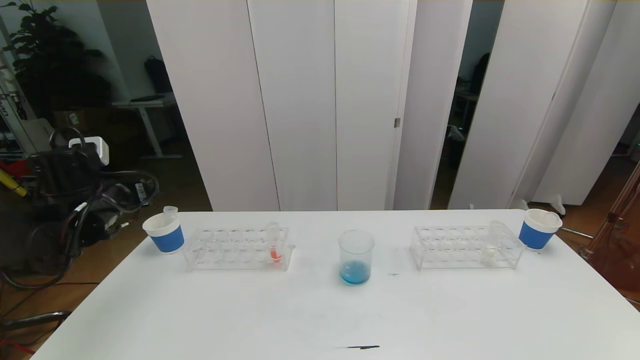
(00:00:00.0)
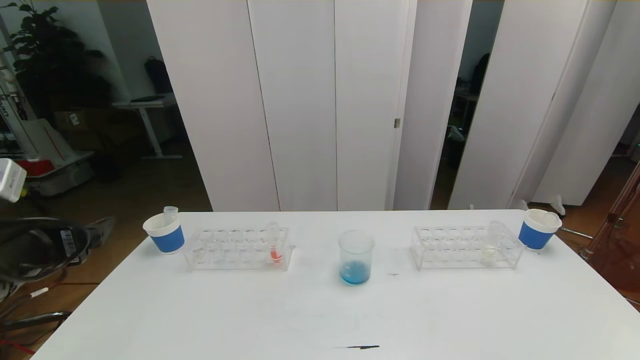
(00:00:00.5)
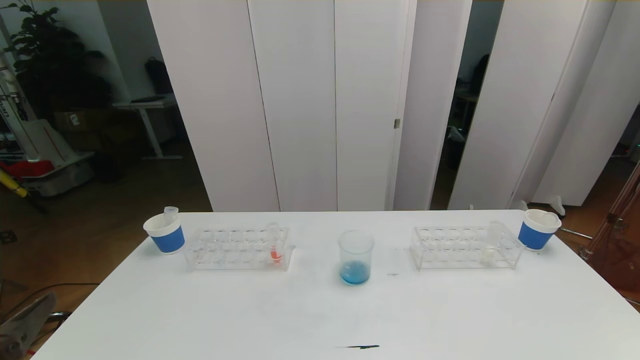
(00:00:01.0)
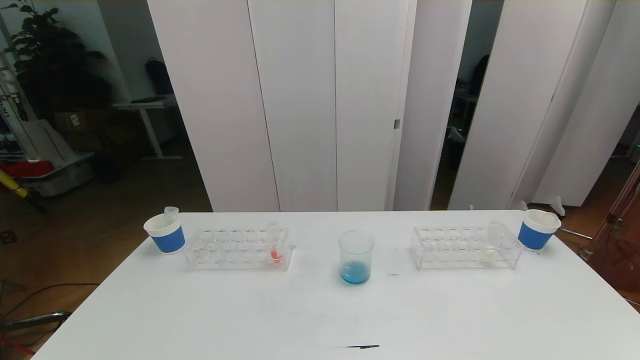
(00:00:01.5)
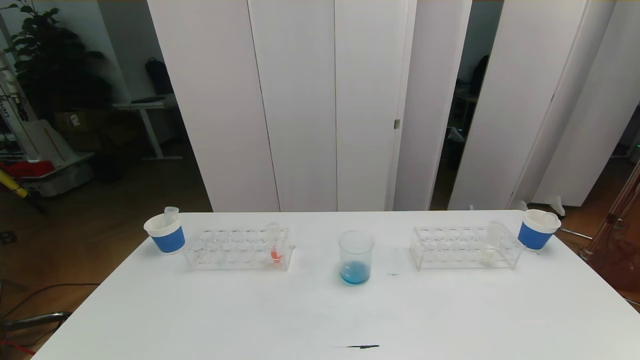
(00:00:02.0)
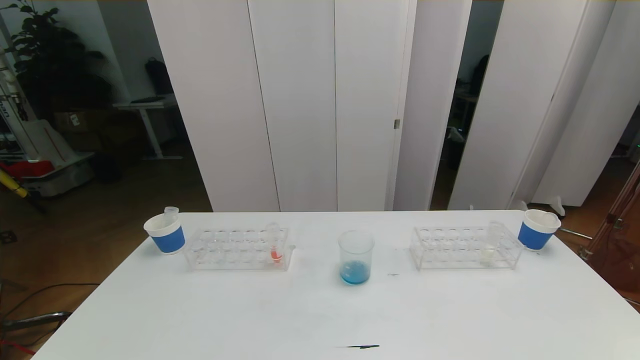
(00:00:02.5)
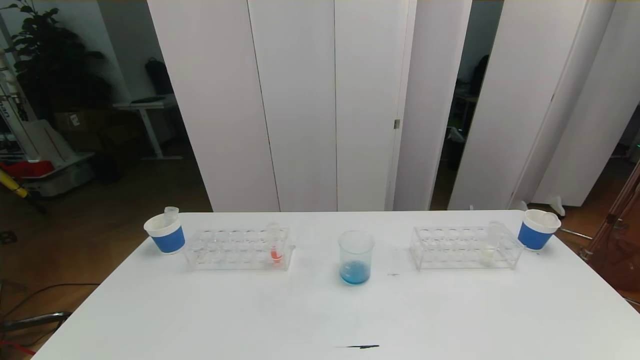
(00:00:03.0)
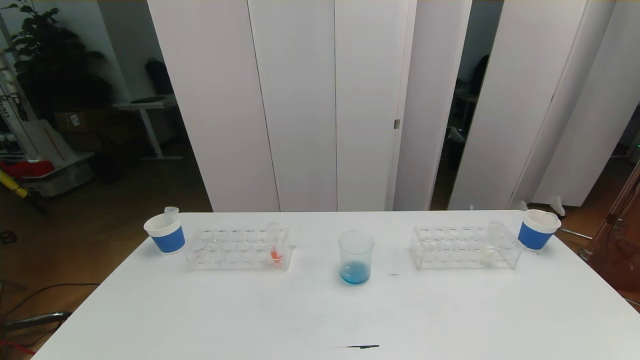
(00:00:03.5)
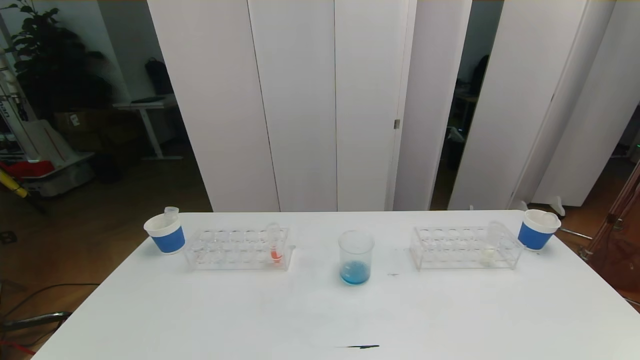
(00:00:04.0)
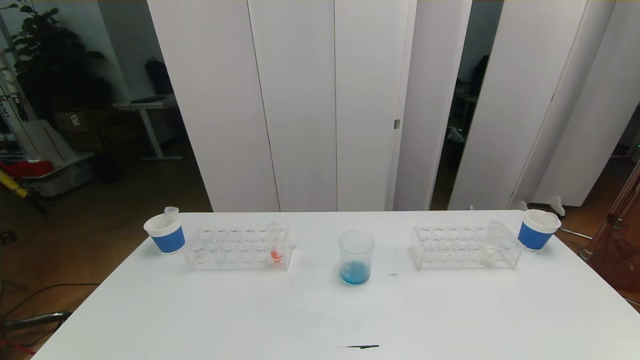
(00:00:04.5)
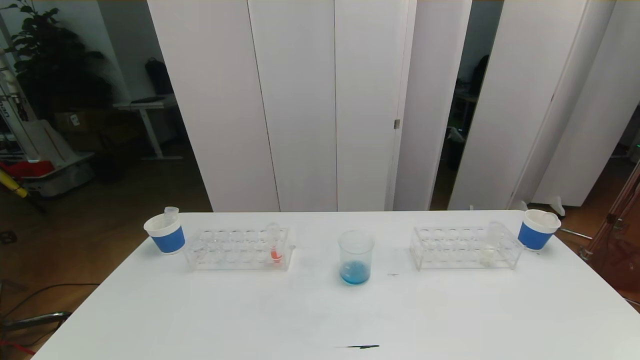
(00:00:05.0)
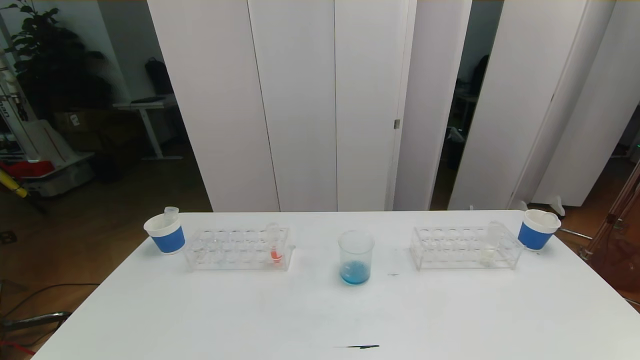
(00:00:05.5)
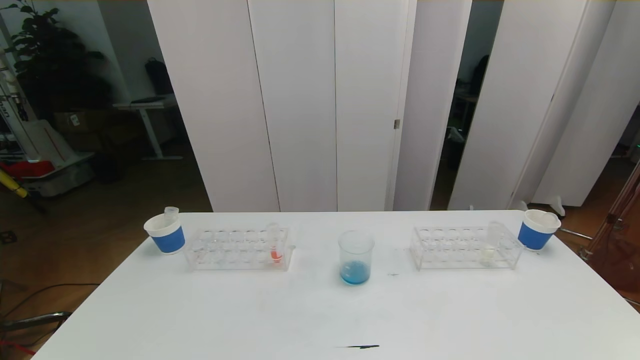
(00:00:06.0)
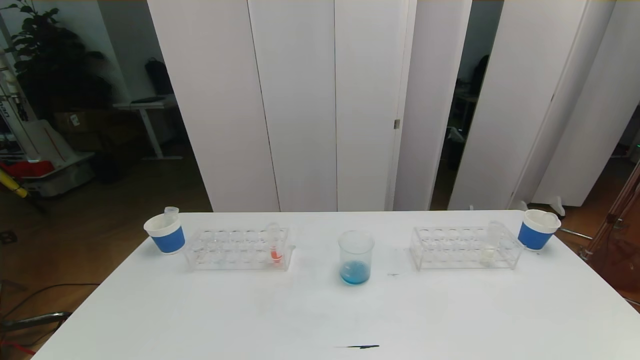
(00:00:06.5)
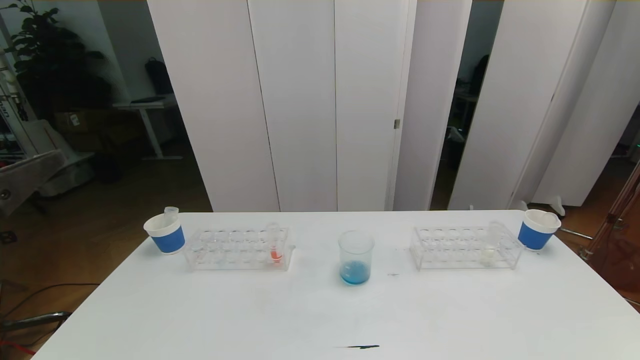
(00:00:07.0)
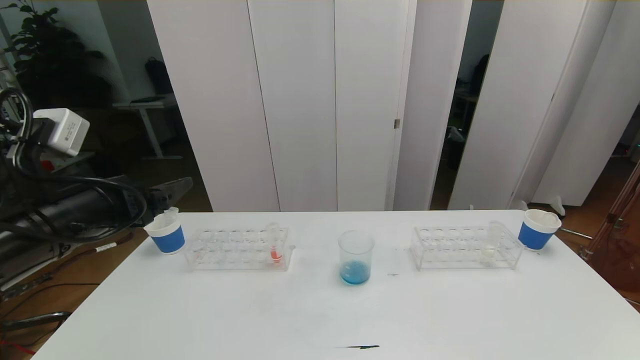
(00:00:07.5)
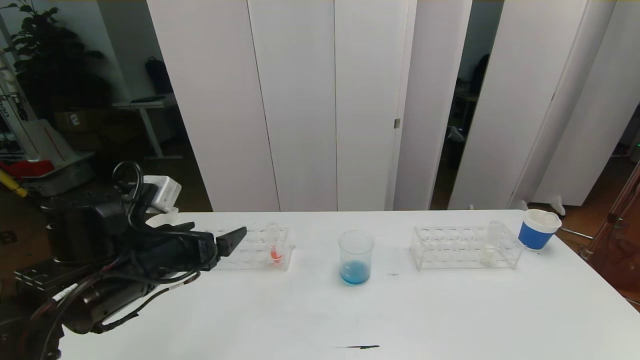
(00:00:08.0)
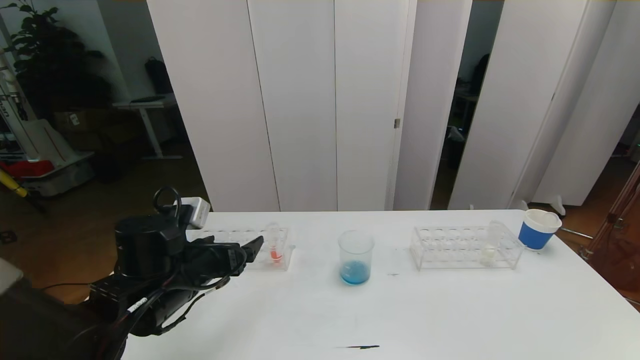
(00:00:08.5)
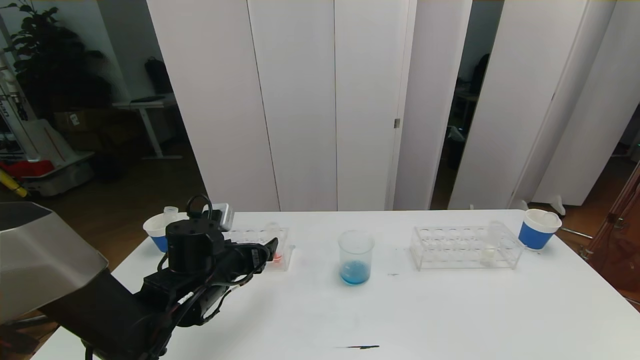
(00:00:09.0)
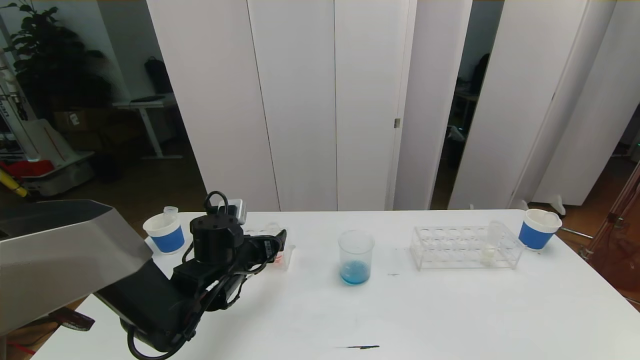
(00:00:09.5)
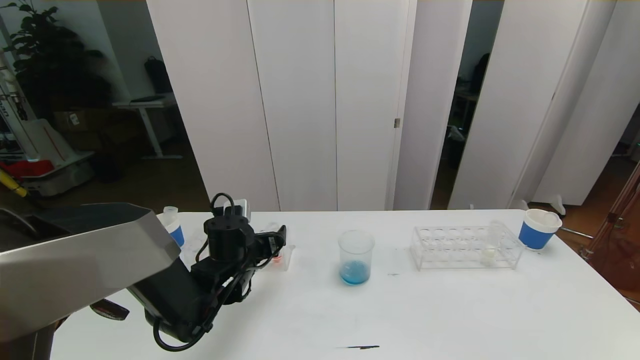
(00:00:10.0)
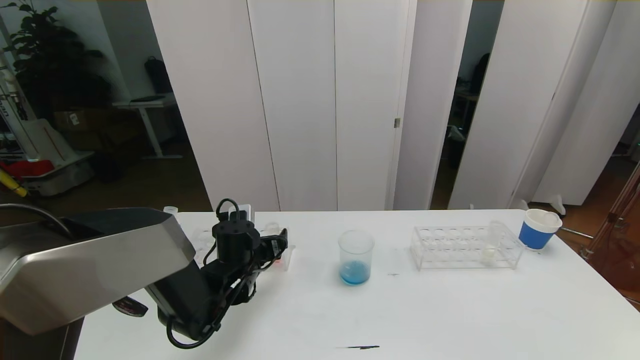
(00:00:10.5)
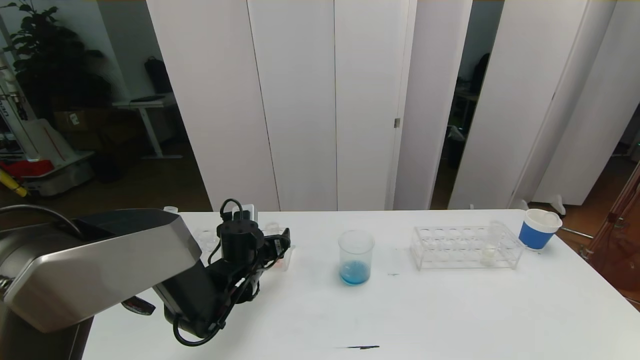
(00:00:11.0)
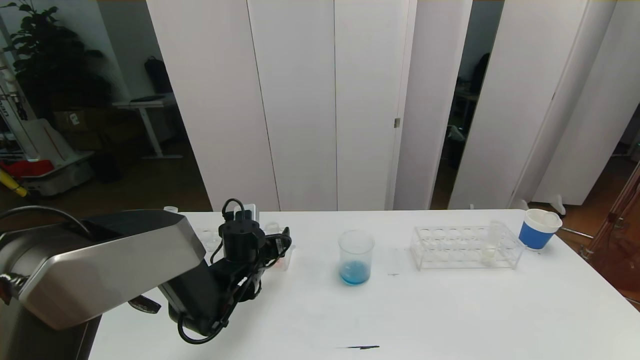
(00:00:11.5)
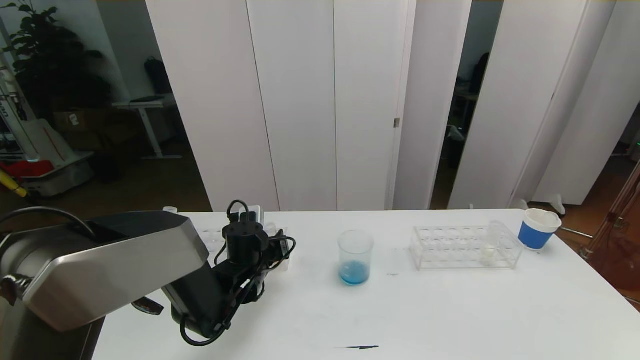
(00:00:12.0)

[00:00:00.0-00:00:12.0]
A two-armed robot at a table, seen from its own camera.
Task of the whole recording: pick up the test tube with red pigment the test tube with blue pigment and the test tube with white pigment by grippers and pour them into the beaker.
Step, 00:00:00.0 to 00:00:02.0: Pour the blue reagent into the graduated cylinder and place the test tube into the paper cup.
00:00:00.0 to 00:00:02.0: The left gripper travels backward by some 40 cm.
00:00:06.0 to 00:00:08.0: The left gripper is displaced forward by approximately 30 cm.
00:00:08.0 to 00:00:10.0: The left gripper is displaced forward, downward and to the right by roughly 15 cm.
00:00:10.0 to 00:00:12.0: The left gripper closes up.

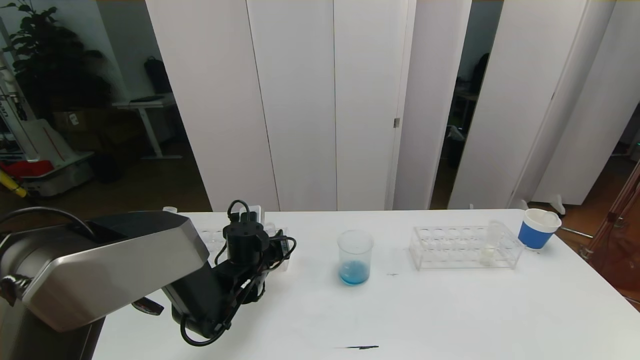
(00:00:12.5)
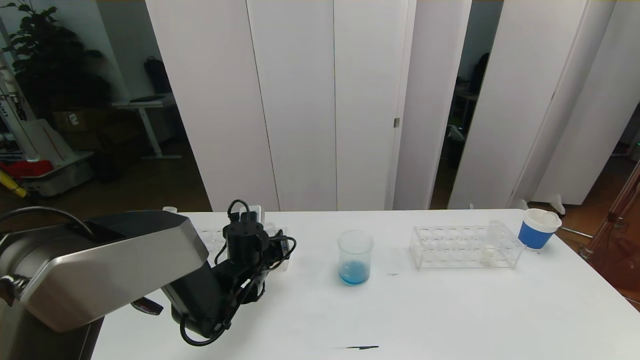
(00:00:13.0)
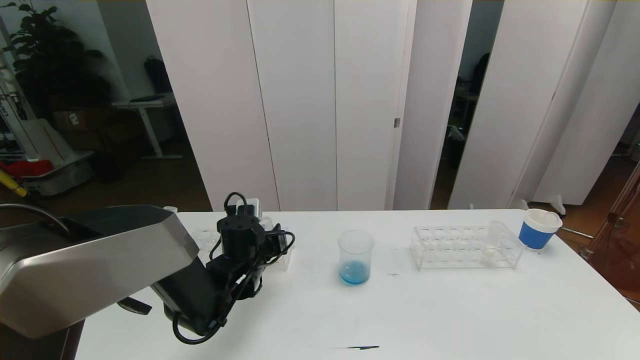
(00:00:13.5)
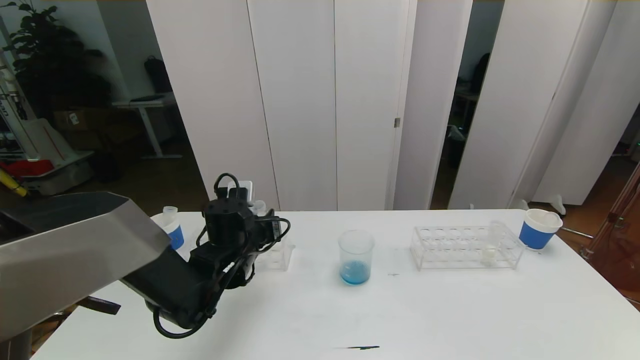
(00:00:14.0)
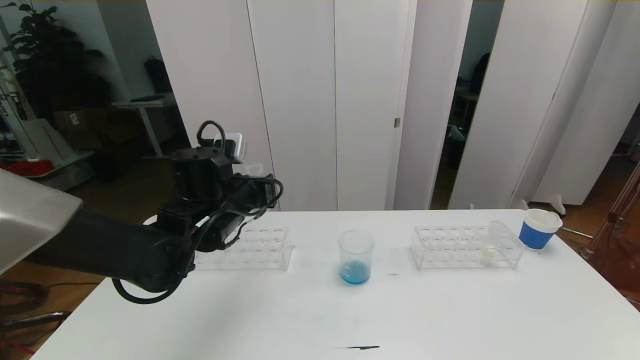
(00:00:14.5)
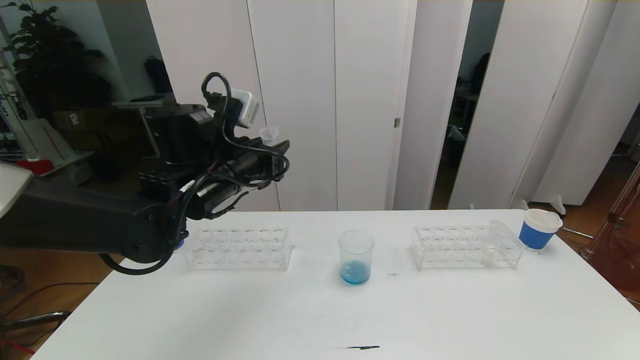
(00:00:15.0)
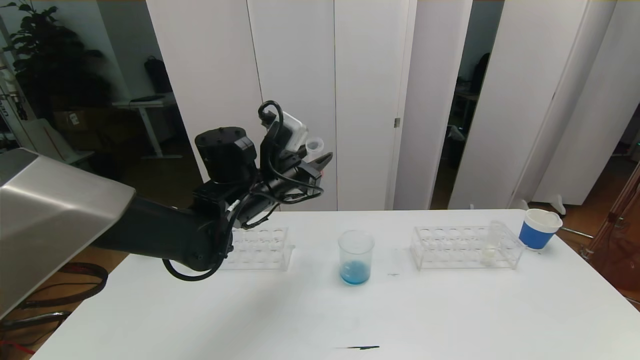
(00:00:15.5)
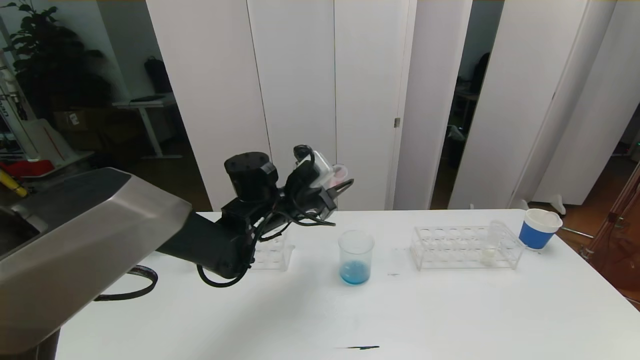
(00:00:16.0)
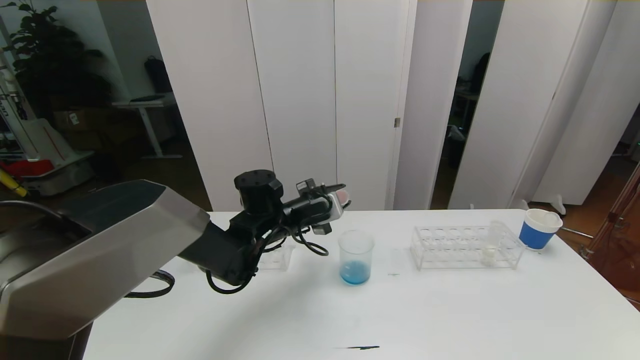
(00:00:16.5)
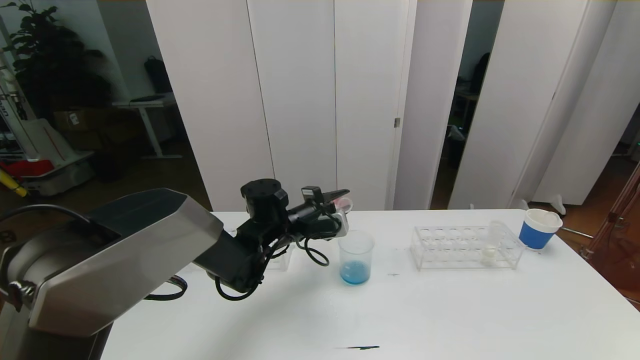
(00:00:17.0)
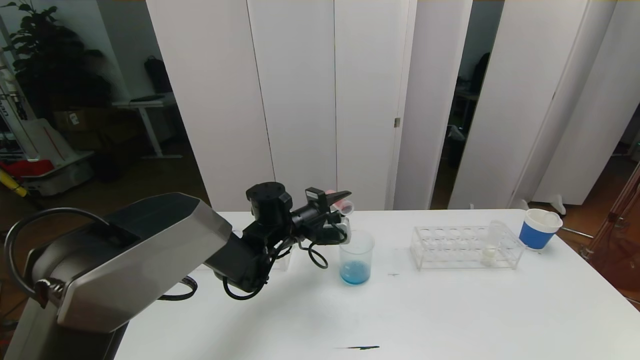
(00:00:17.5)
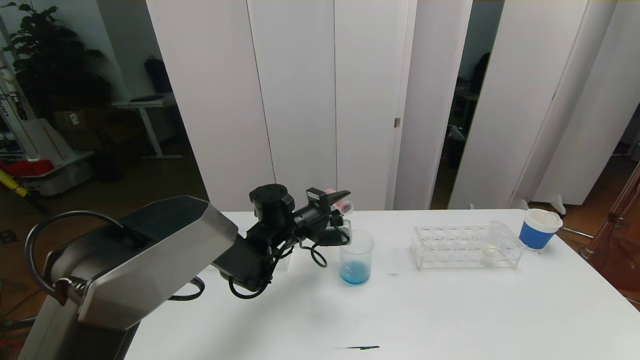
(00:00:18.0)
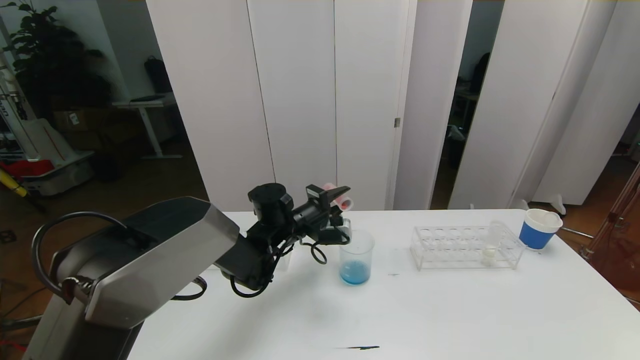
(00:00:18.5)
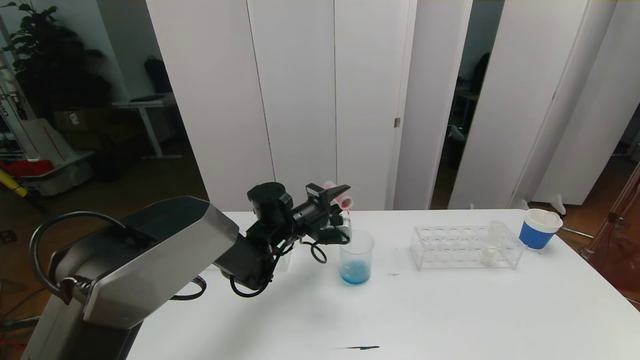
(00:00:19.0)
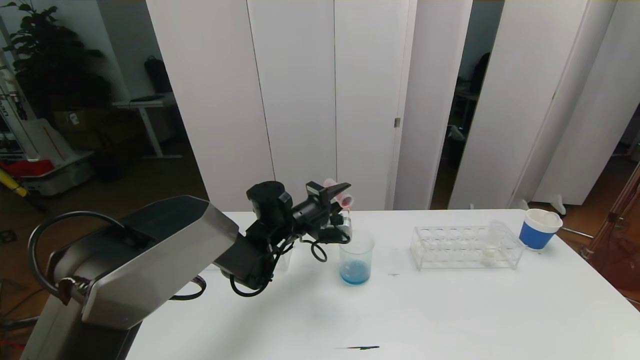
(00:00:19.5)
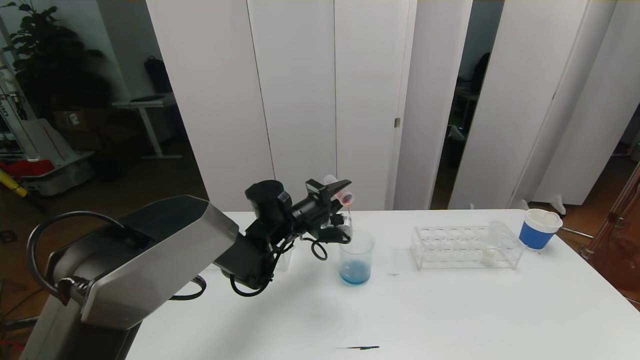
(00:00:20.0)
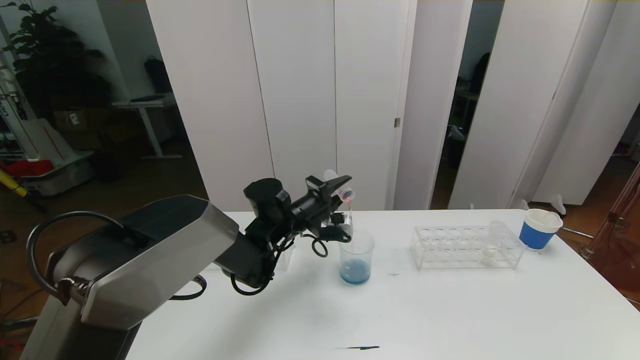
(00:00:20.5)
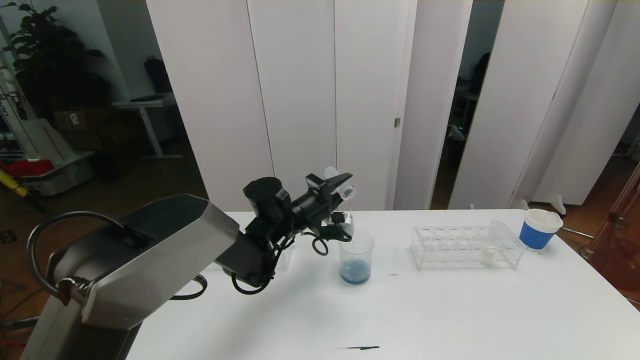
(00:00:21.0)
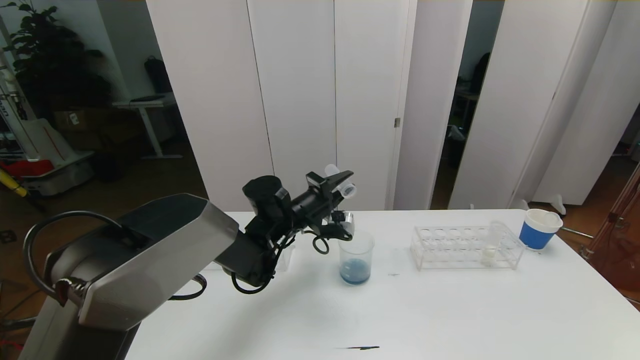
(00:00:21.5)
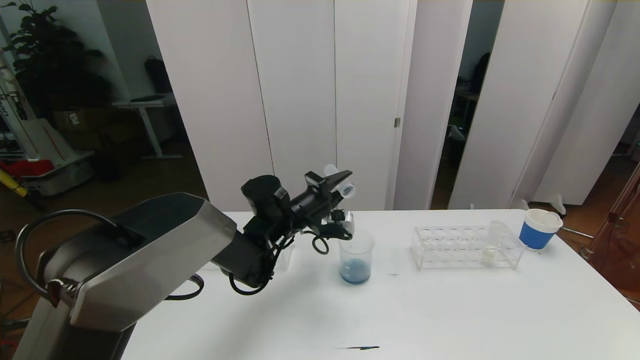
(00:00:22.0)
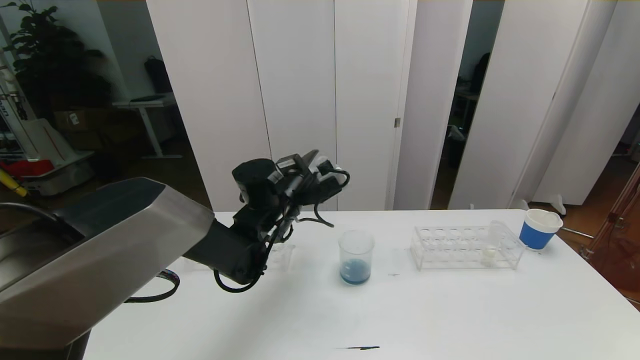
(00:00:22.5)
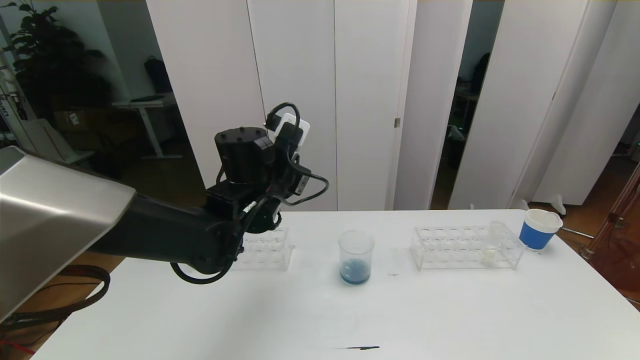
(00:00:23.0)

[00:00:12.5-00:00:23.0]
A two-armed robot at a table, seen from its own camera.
Task of the whole recording: pick up the test tube with red pigment the test tube with blue pigment and the test tube with white pigment by grippers and pour them into the beaker.
00:00:12.5 to 00:00:14.5: The left gripper goes approximately 15 cm upward.
00:00:14.5 to 00:00:16.5: The left gripper is displaced to the right, downward and forward by about 10 cm.
00:00:19.0 to 00:00:21.0: There are only small adjustments of the grippers.
00:00:21.0 to 00:00:23.0: The left gripper shifts approximately 10 cm upward and backward.
